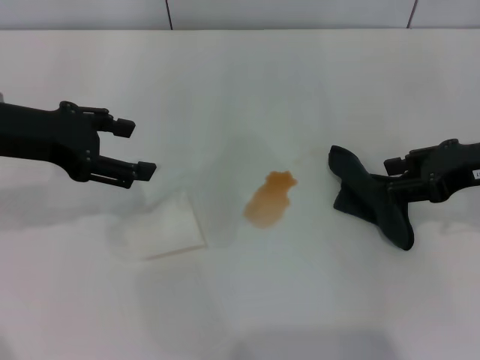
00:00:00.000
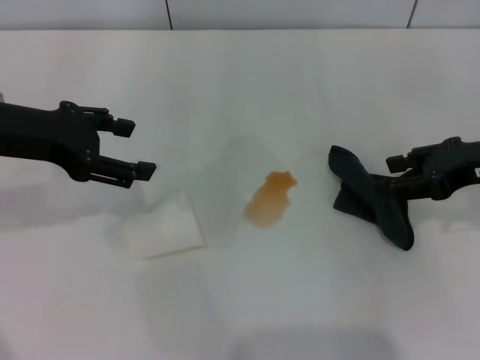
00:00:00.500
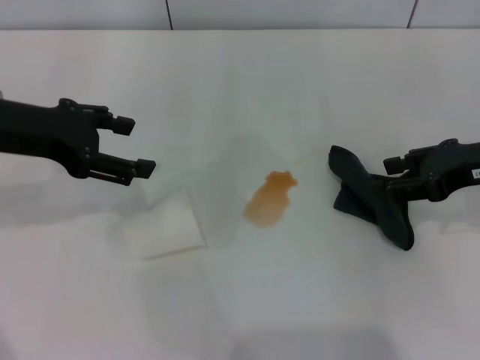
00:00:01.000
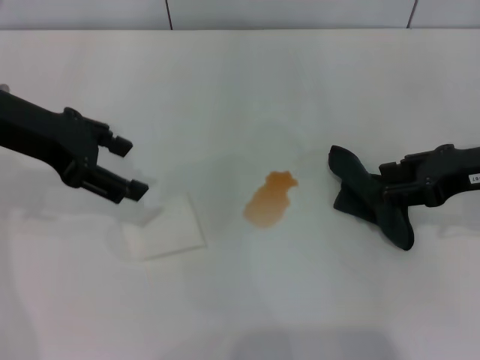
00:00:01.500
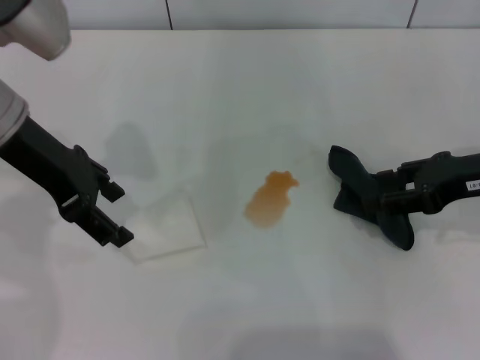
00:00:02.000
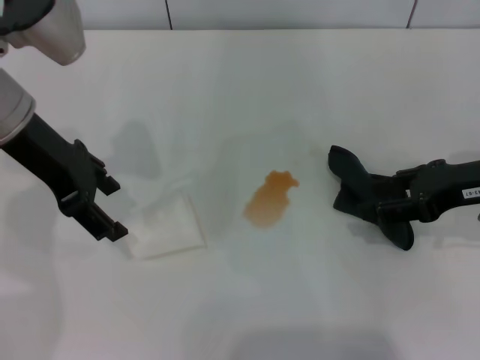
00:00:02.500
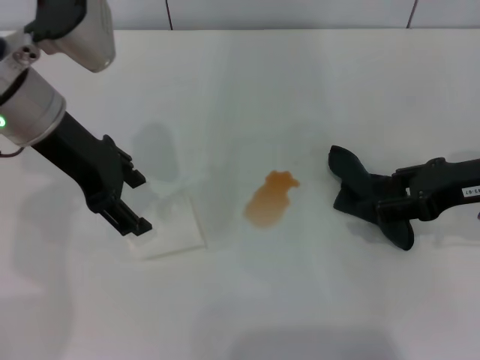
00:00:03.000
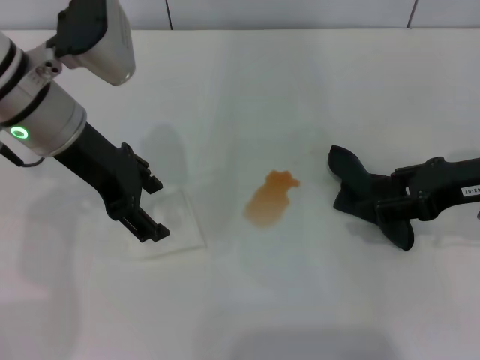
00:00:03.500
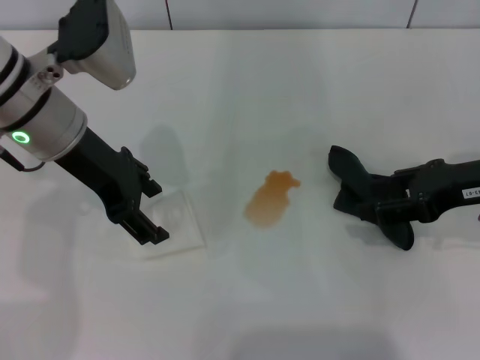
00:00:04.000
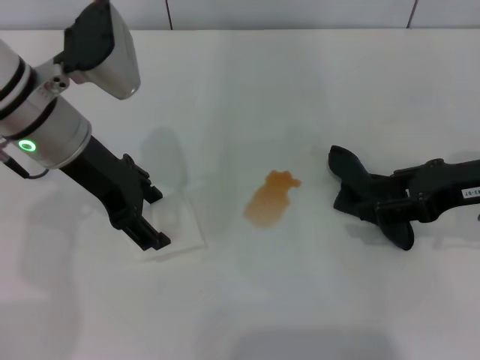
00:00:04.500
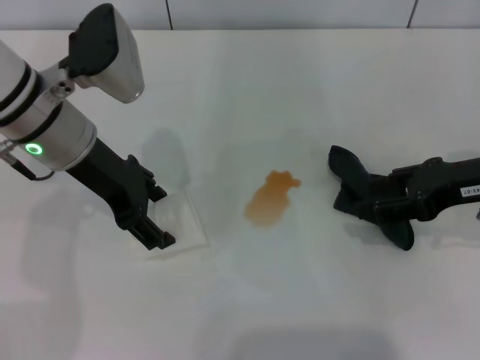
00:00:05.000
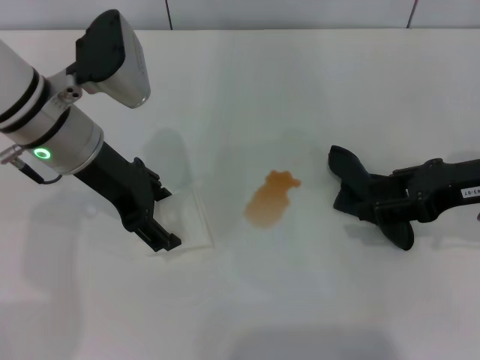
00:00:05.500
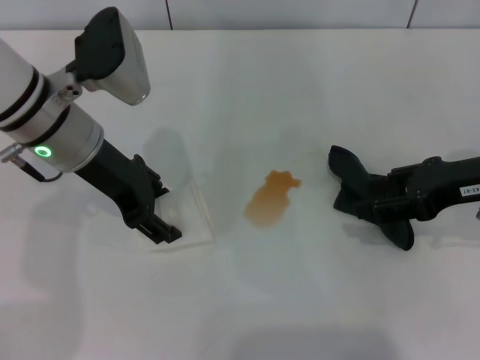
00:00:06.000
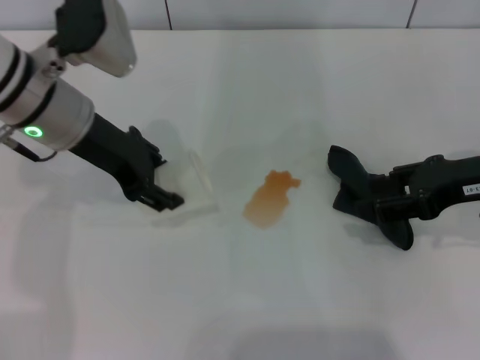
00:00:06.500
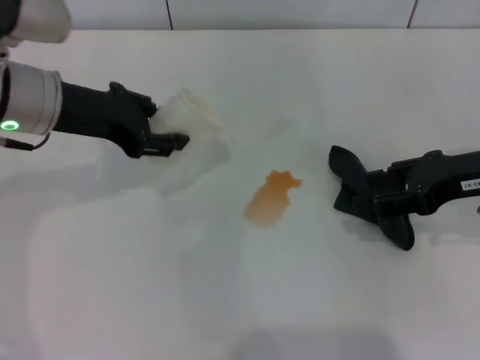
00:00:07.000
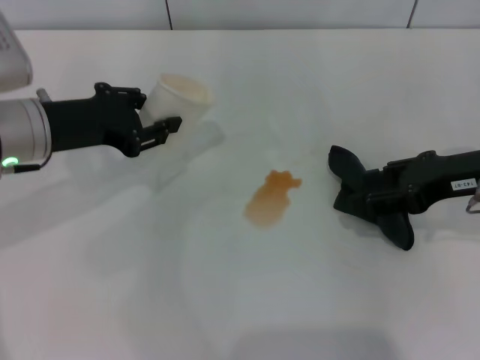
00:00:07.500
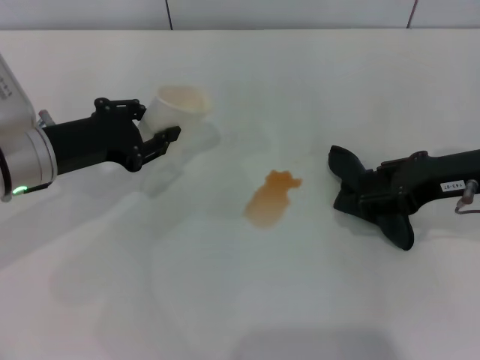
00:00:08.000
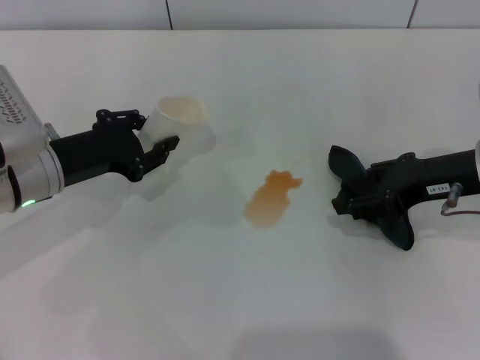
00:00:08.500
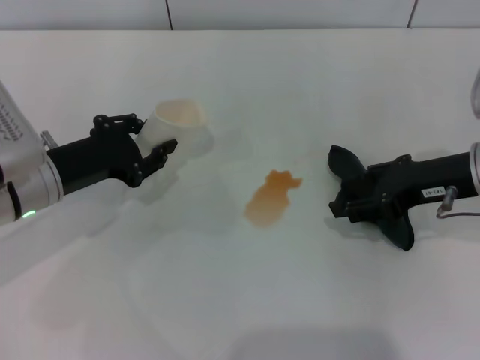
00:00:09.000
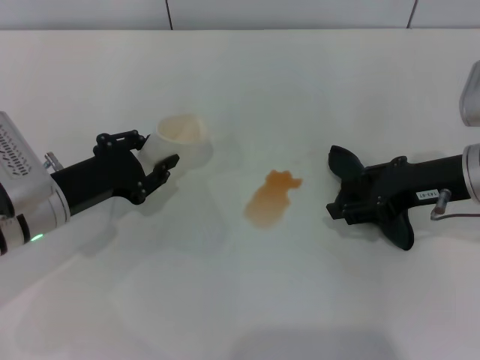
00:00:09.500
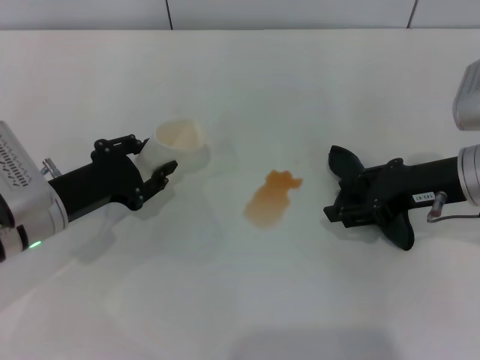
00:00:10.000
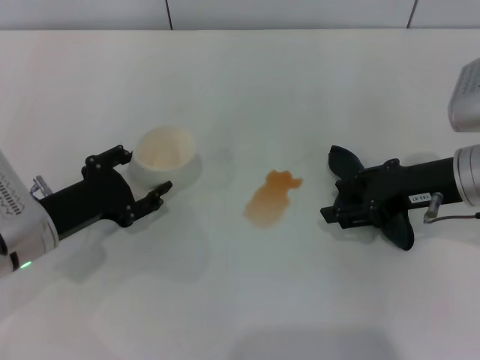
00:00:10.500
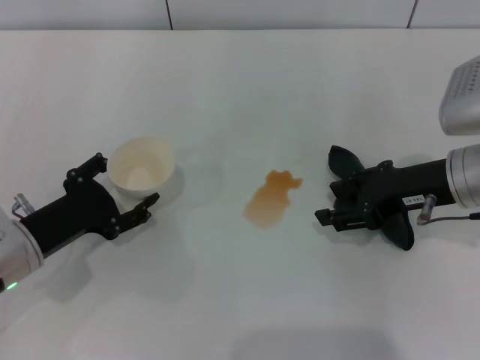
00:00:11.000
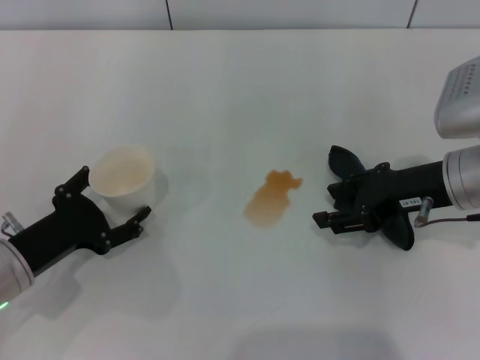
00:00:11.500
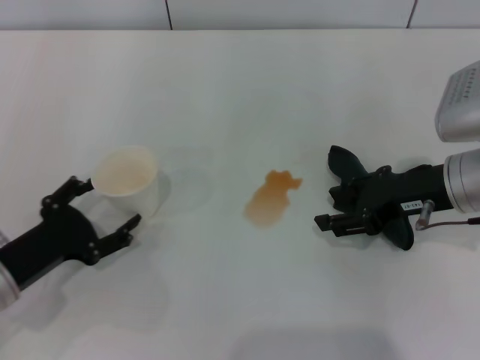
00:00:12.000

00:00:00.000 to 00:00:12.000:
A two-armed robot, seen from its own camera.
Step, 00:00:00.000 to 00:00:05.000: Grasp the paper cup with the left gripper.
00:00:00.000 to 00:00:02.000: The left gripper shifts by roughly 5 cm.
00:00:02.000 to 00:00:04.000: The grippers make only small movements.
00:00:04.000 to 00:00:06.000: There are only small adjustments of the grippers.
00:00:06.000 to 00:00:08.000: The left gripper heads to the left and downward, covering approximately 10 cm, and closes.
00:00:08.000 to 00:00:10.000: The left gripper shifts roughly 5 cm downward.
00:00:10.000 to 00:00:12.000: The left gripper moves backward, approximately 5 cm, and opens its fingers.

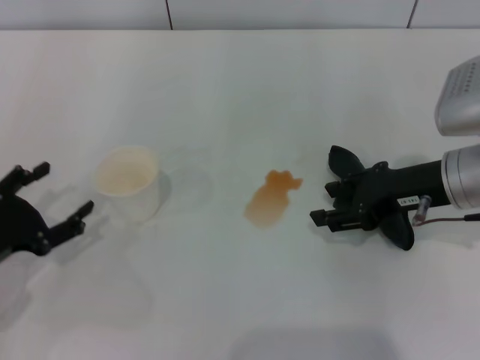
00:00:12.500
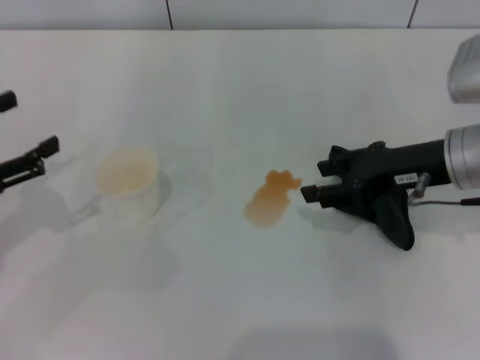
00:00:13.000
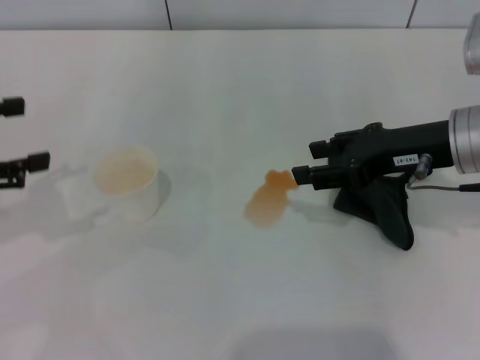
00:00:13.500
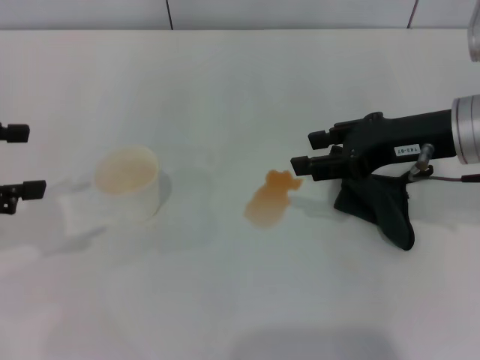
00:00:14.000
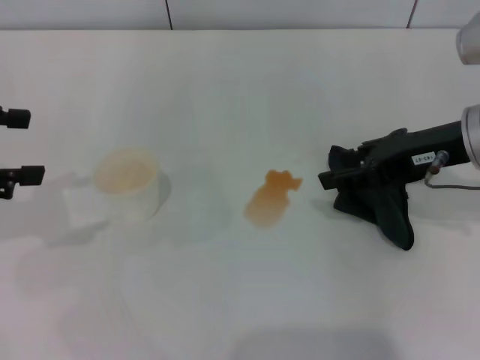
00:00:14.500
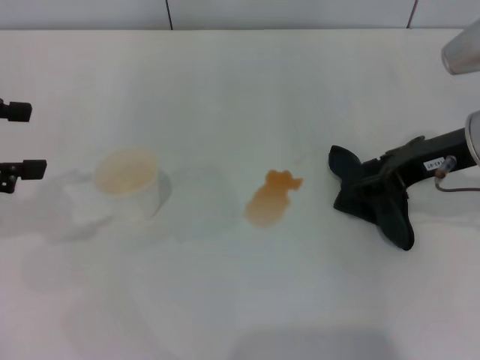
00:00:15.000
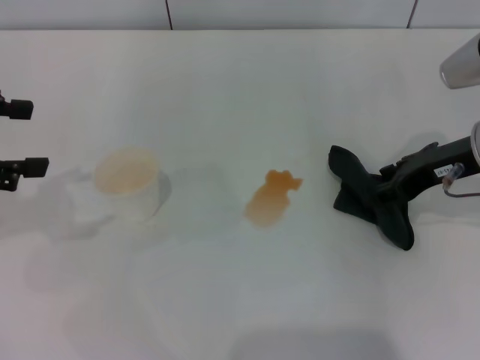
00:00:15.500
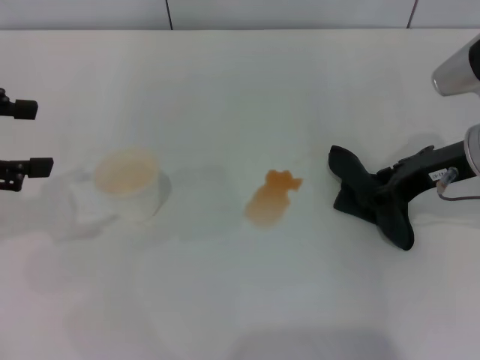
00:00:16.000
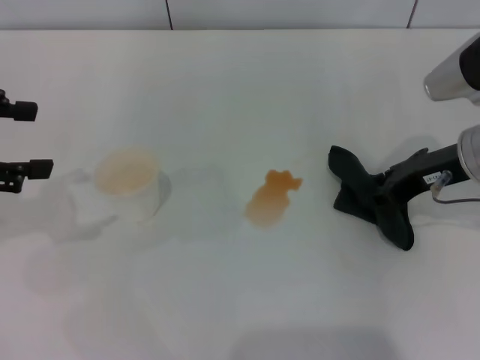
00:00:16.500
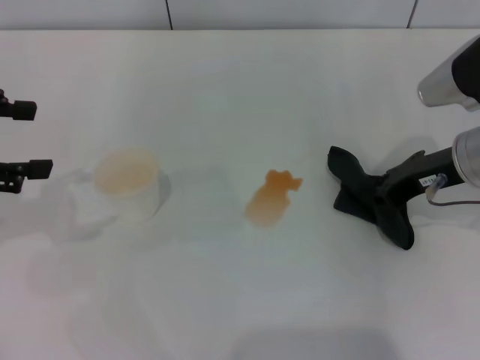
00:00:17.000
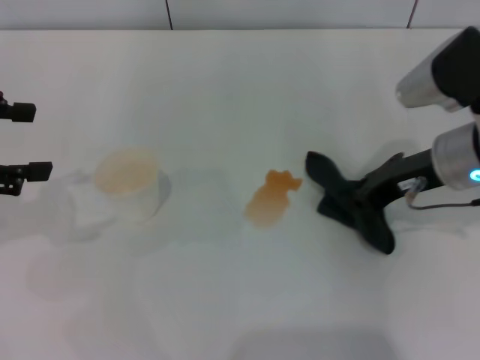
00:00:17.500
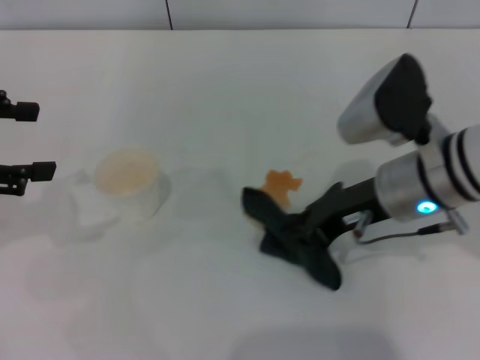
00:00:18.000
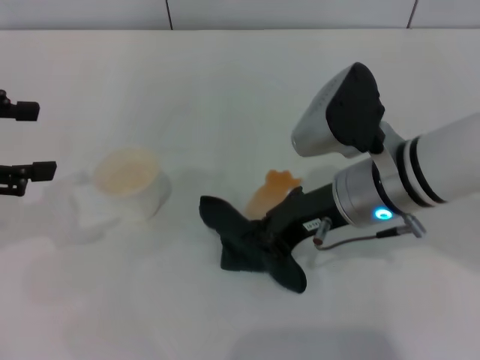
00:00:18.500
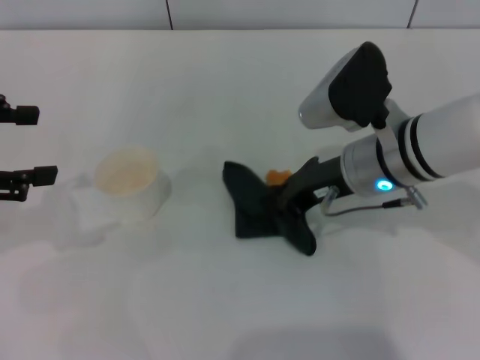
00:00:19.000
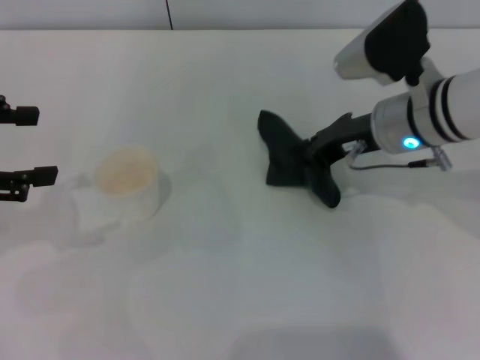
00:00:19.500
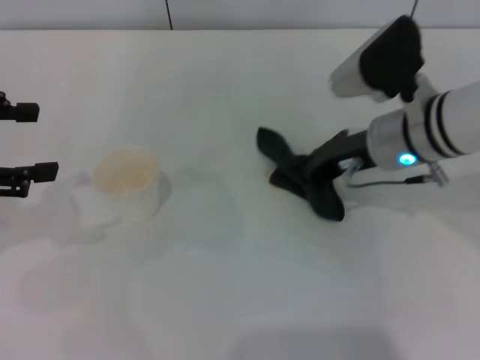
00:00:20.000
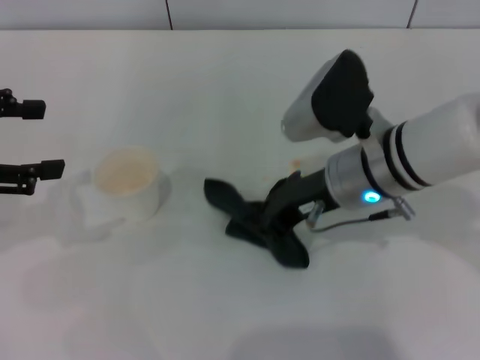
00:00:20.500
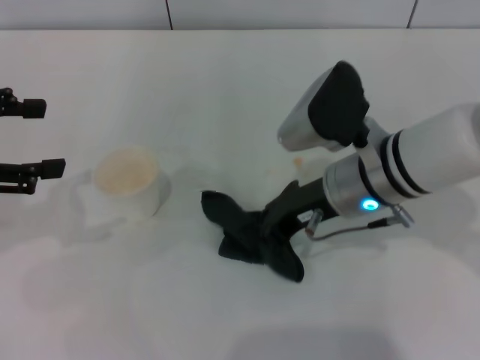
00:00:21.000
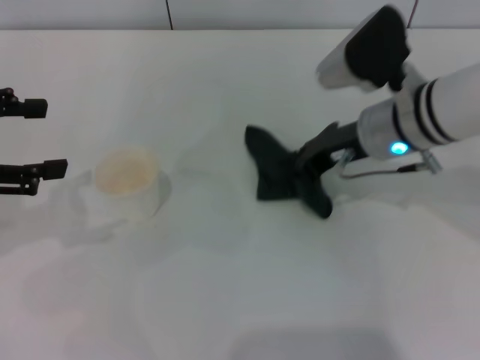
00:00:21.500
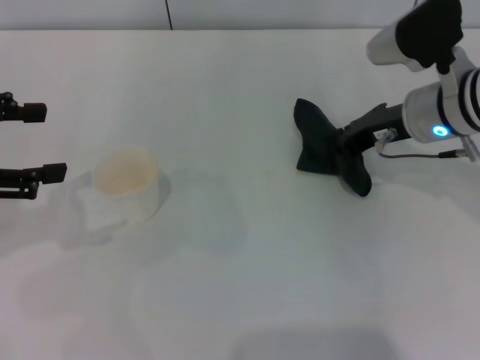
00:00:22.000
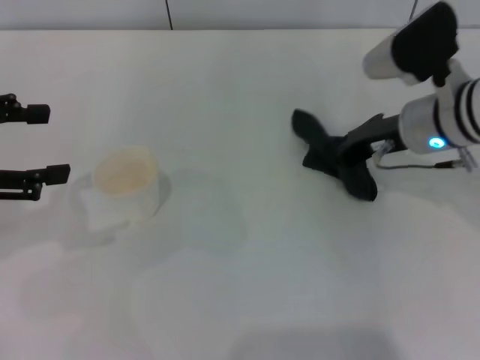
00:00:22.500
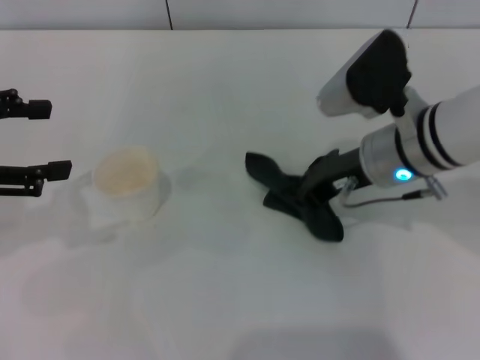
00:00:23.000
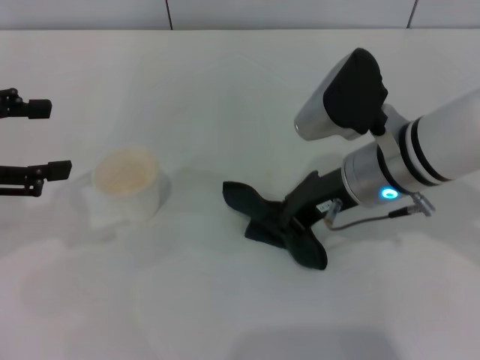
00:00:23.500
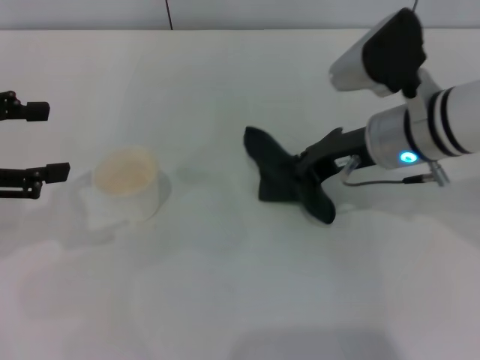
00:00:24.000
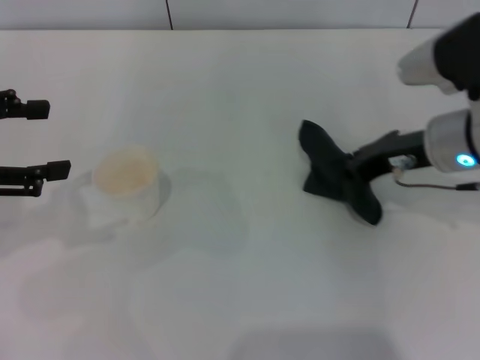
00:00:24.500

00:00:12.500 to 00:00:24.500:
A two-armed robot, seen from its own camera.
Step, 00:00:12.500 to 00:00:16.500: Grasp the rag with the right gripper.
Step, 00:00:17.000 to 00:00:23.500: Wipe the stains off the table with the right gripper.
00:00:12.500 to 00:00:14.500: The left gripper goes some 20 cm upward and forward. Meanwhile the right gripper shifts by approximately 5 cm.
00:00:14.500 to 00:00:16.500: The grippers make only small movements.
00:00:16.500 to 00:00:18.500: The right gripper travels to the left by roughly 10 cm, and closes up.
00:00:20.500 to 00:00:22.500: The right gripper heads to the right, covering about 10 cm.
00:00:22.500 to 00:00:24.500: The right gripper moves approximately 5 cm to the left and comes back.

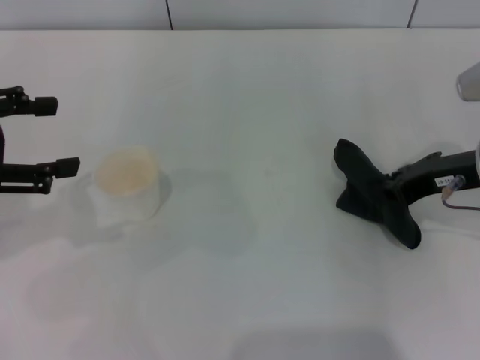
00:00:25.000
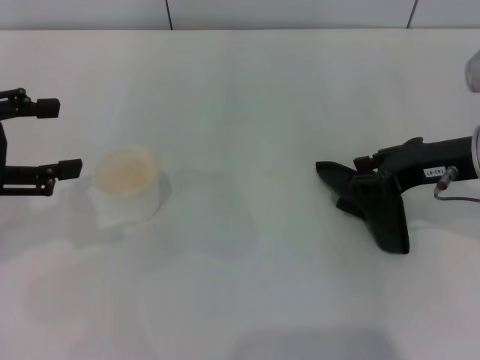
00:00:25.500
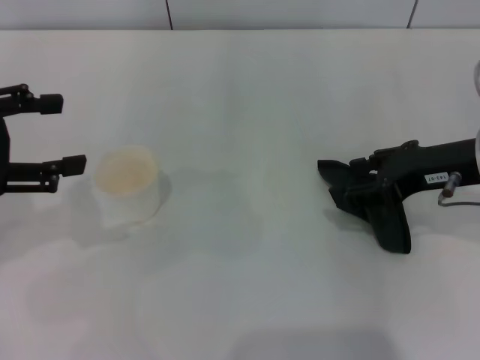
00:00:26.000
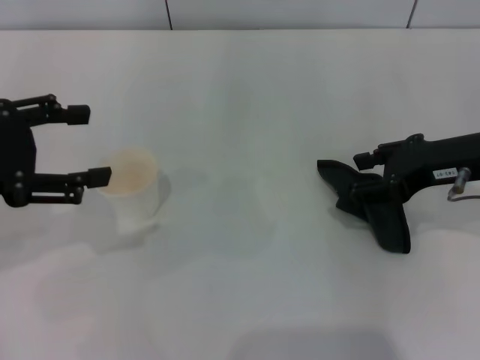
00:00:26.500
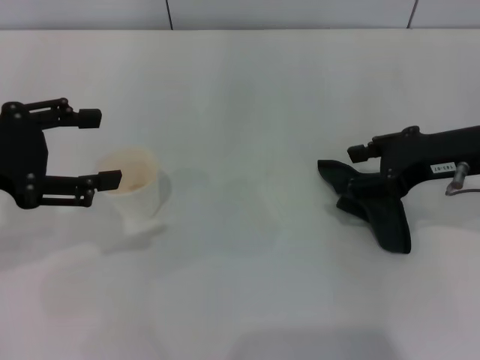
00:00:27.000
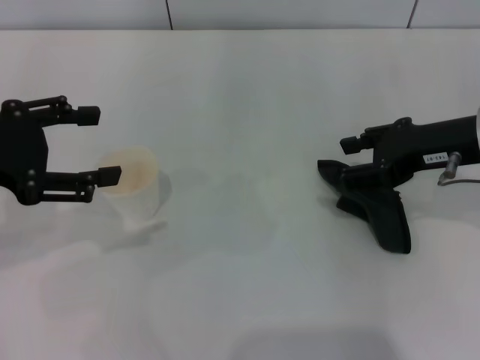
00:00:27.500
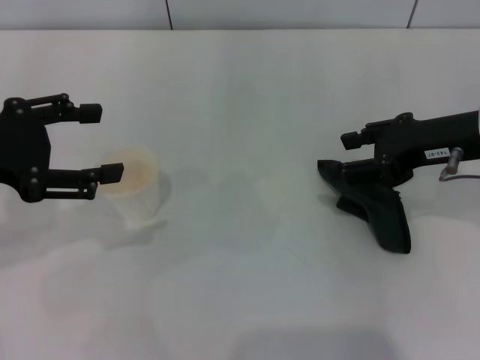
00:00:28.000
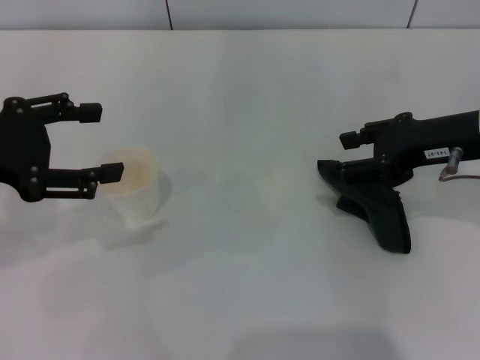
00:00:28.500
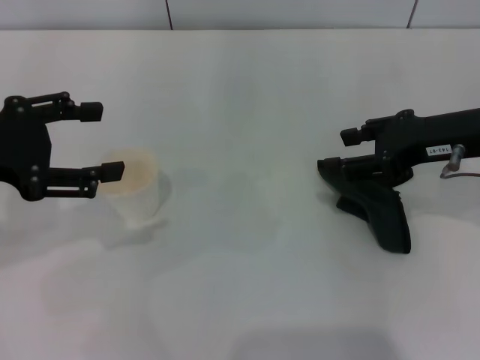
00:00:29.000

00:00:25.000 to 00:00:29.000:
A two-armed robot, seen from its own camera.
Step, 00:00:25.000 to 00:00:27.000: Place the rag on the table with the right gripper.
00:00:25.000 to 00:00:27.000: The right gripper opens.
00:00:27.000 to 00:00:29.000: Both grippers stay about where they are.
